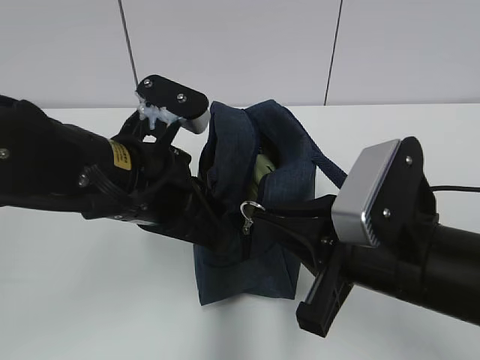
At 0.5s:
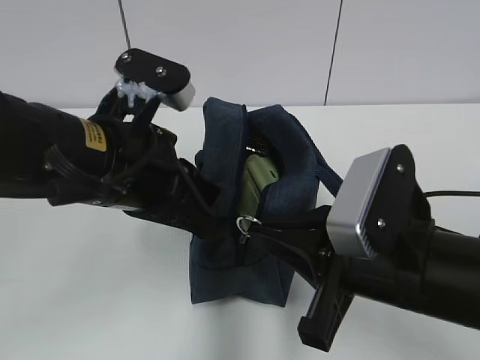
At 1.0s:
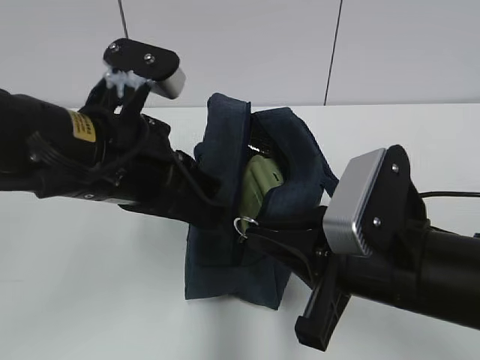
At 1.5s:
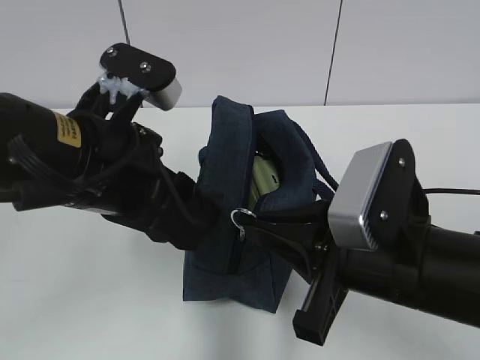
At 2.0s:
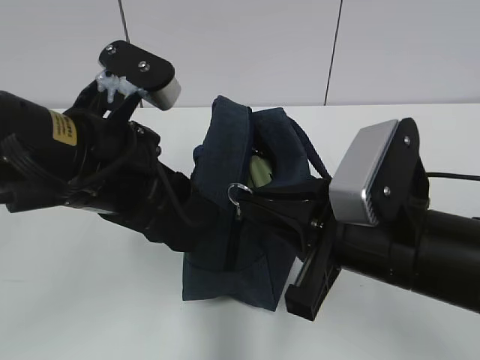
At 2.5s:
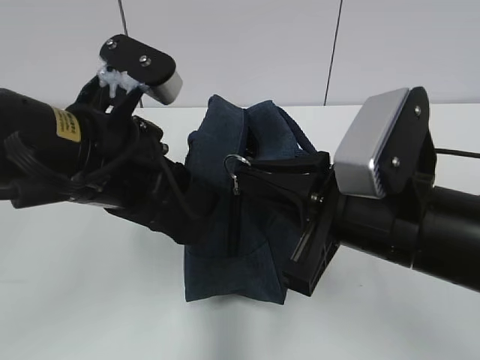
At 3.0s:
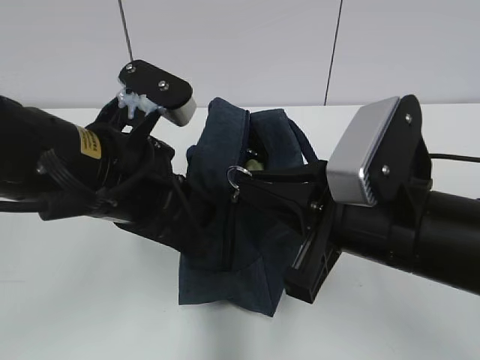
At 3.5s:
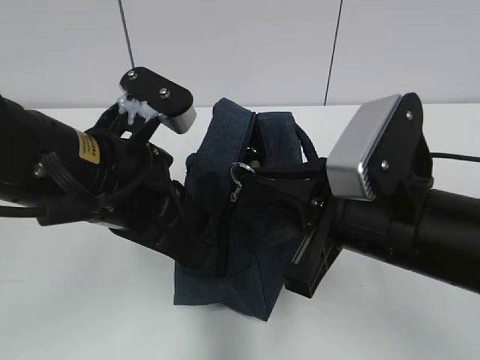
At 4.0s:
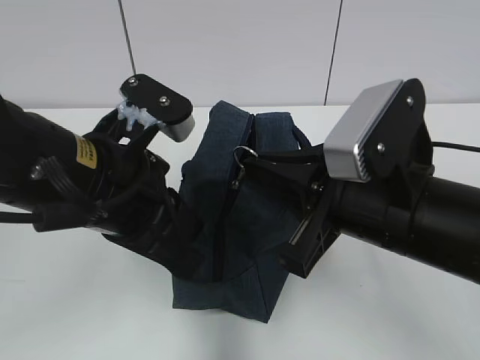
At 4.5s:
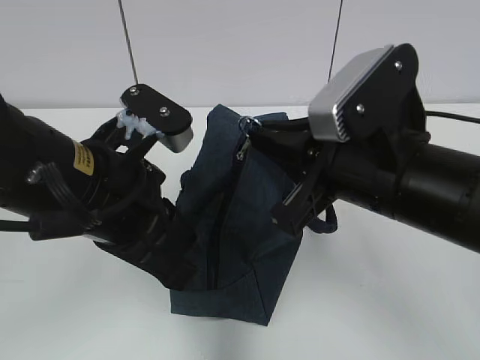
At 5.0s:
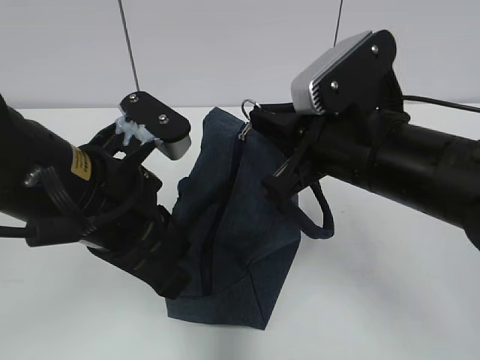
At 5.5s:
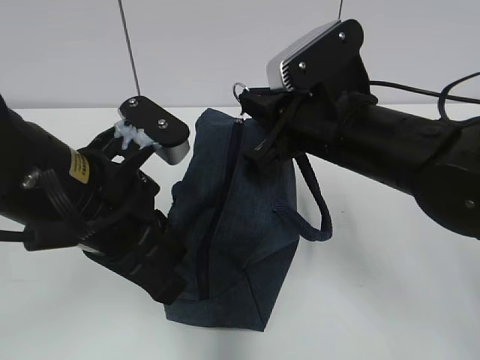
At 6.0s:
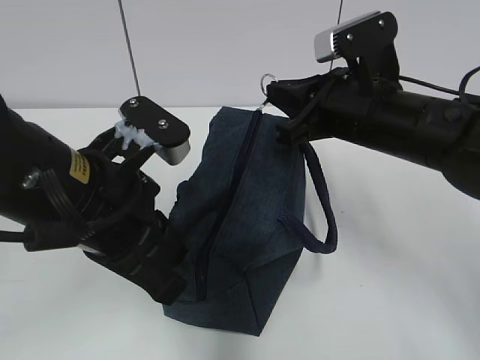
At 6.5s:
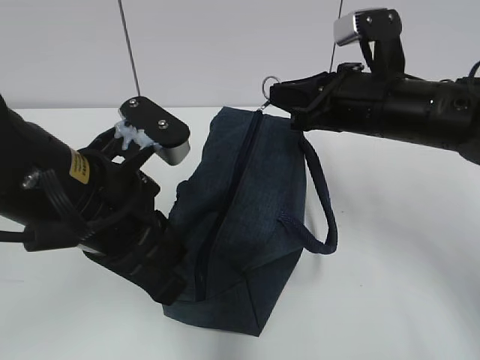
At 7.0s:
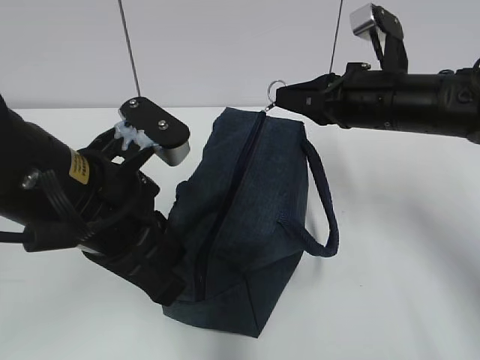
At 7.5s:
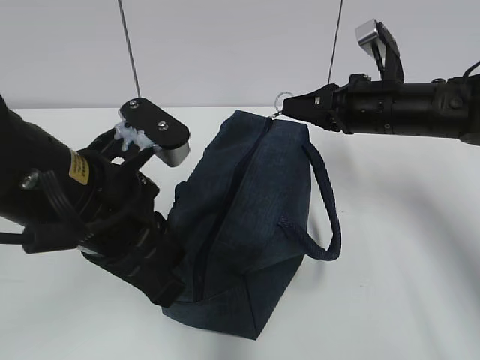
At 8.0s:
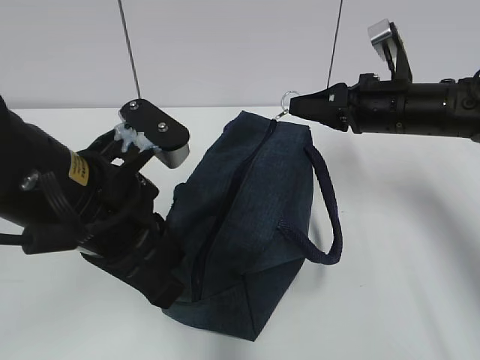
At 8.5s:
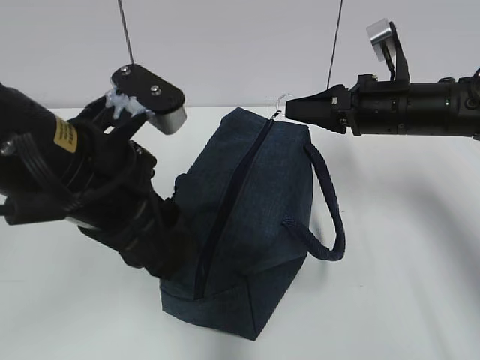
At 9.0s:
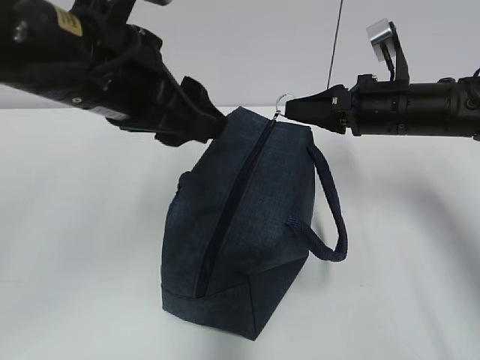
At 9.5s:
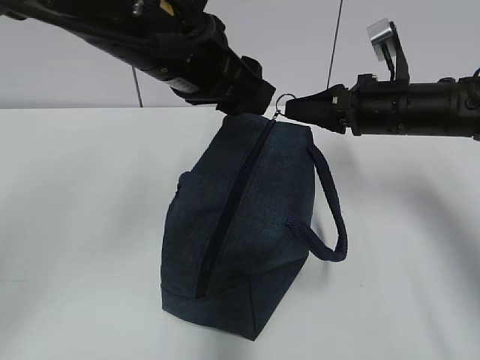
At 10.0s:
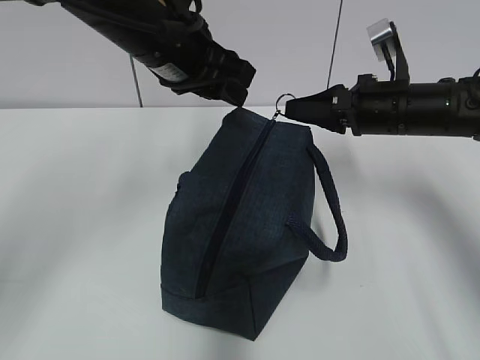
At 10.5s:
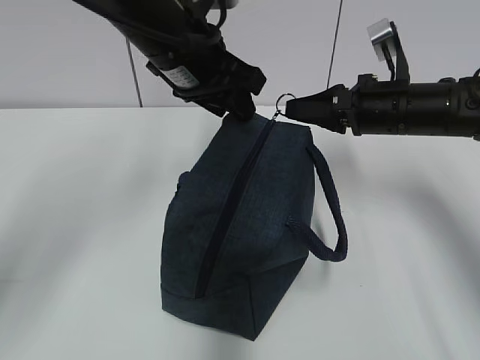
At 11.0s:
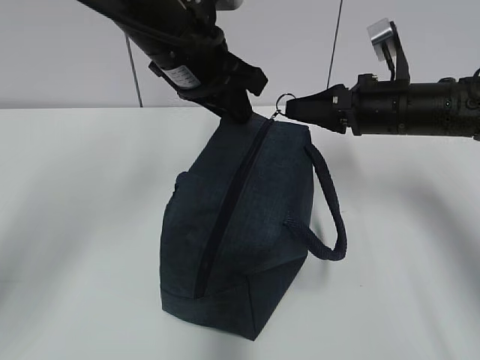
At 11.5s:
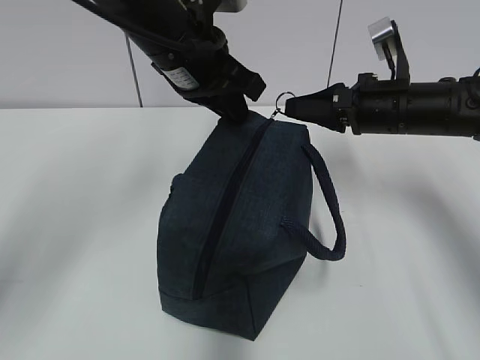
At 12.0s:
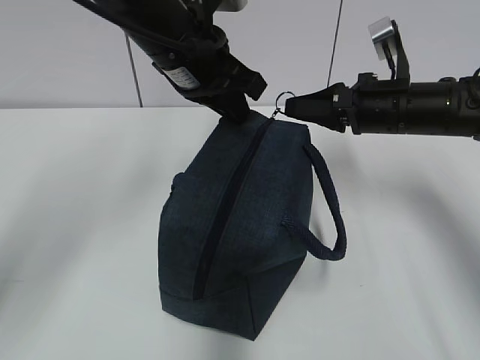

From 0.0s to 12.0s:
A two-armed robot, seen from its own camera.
From 0.0s to 2.0s: The left gripper opens.
From 2.0s to 4.0s: The left gripper closes.
From 4.0s to 6.0s: The right gripper moves forward, roughly 10 cm.
From 6.0s to 8.0s: The right gripper is displaced forward and to the right by about 10 cm.
From 8.0s to 10.0s: The left gripper travels forward and upward by some 15 cm, and opens.
From 10.0s to 12.0s: The left gripper closes up.

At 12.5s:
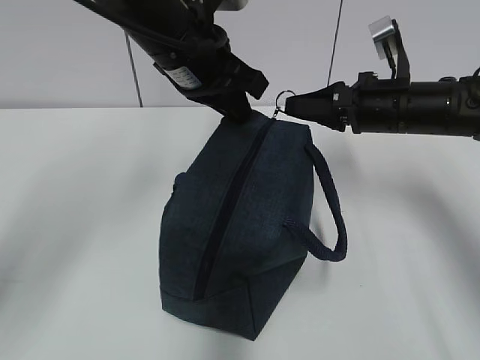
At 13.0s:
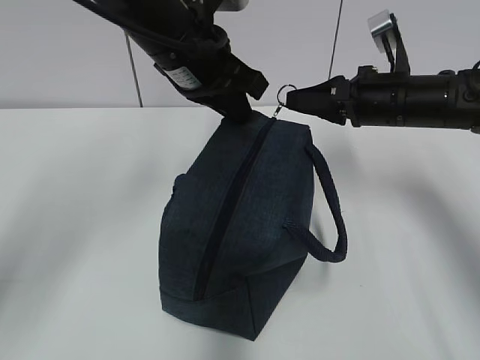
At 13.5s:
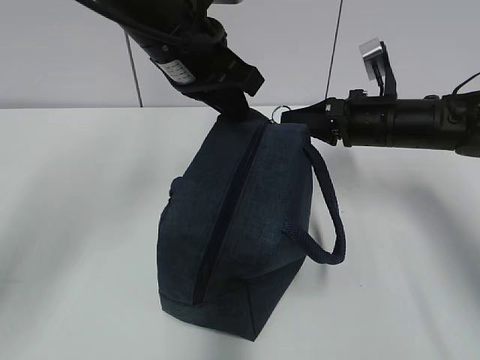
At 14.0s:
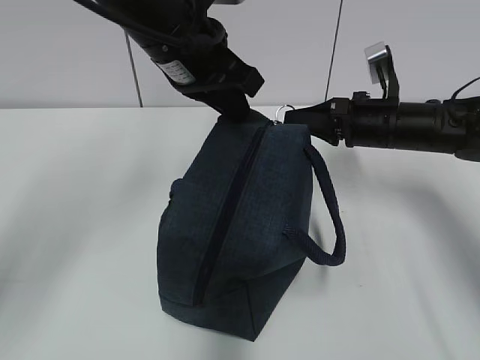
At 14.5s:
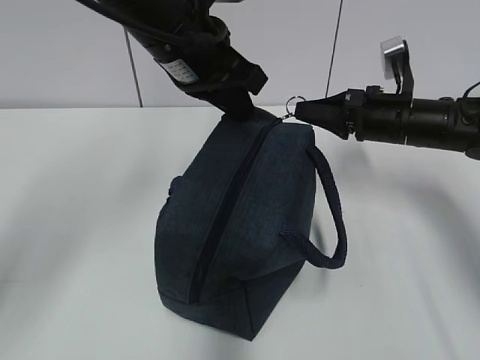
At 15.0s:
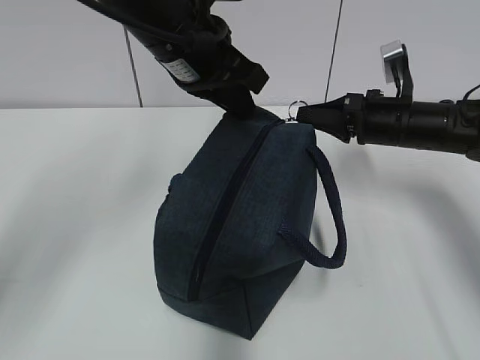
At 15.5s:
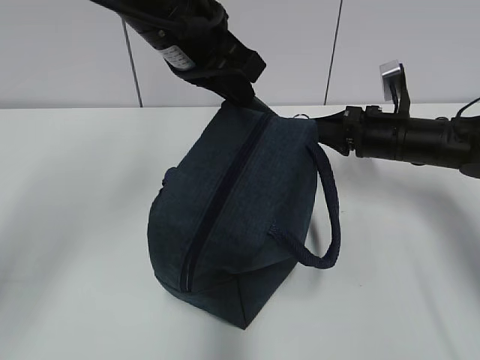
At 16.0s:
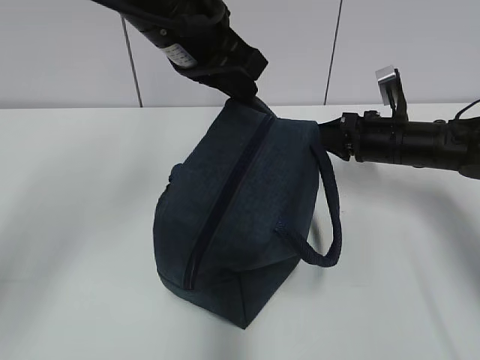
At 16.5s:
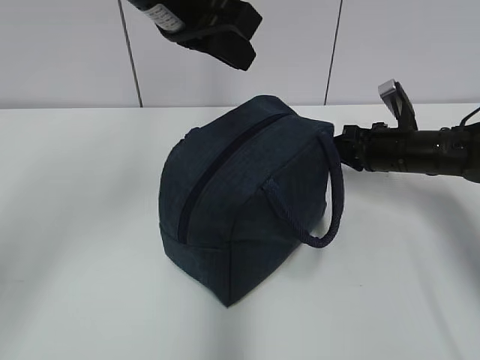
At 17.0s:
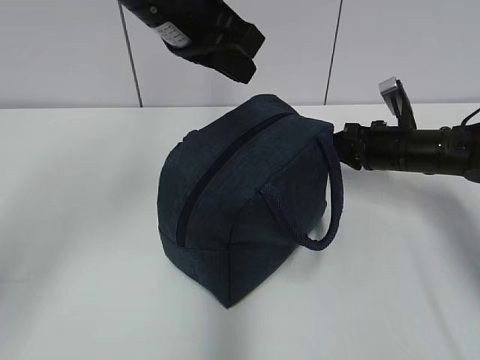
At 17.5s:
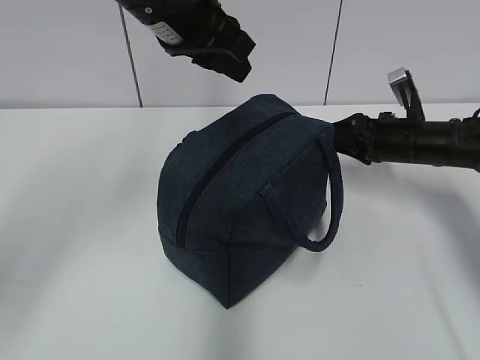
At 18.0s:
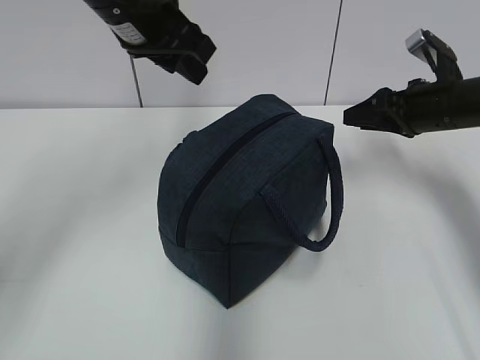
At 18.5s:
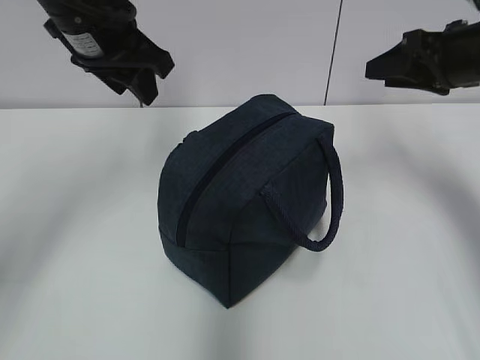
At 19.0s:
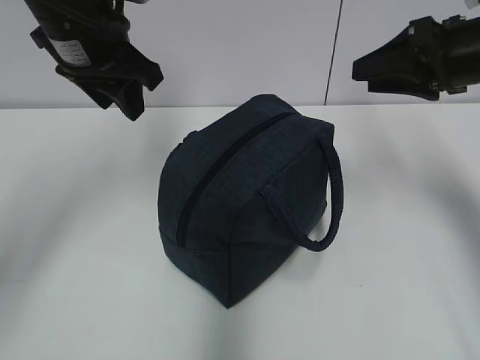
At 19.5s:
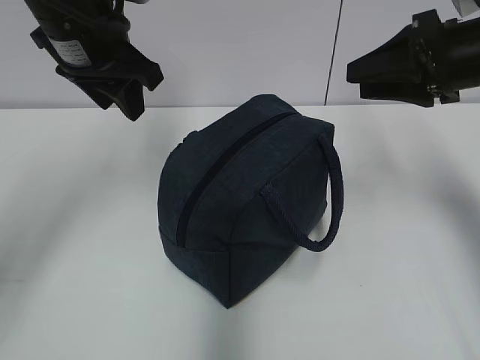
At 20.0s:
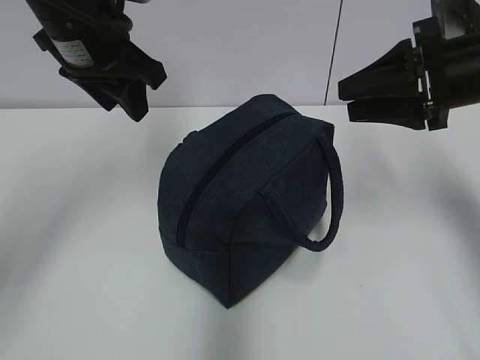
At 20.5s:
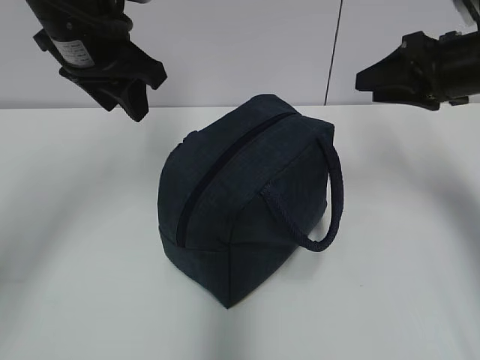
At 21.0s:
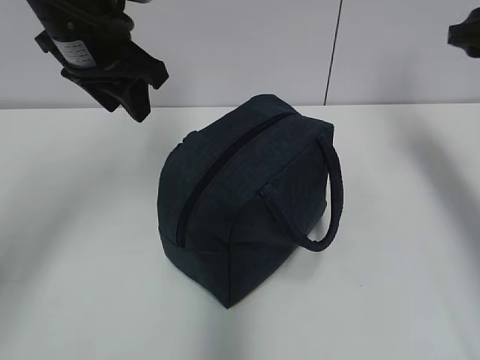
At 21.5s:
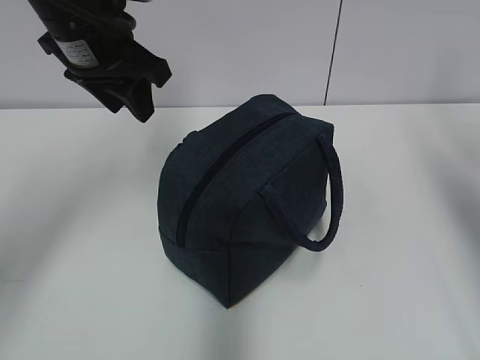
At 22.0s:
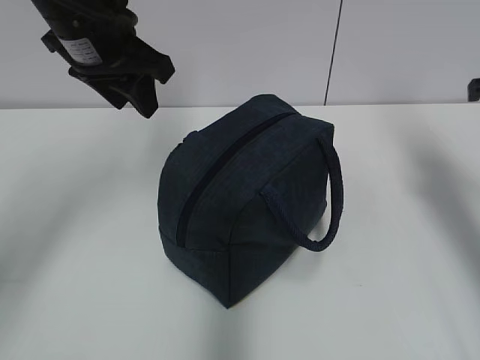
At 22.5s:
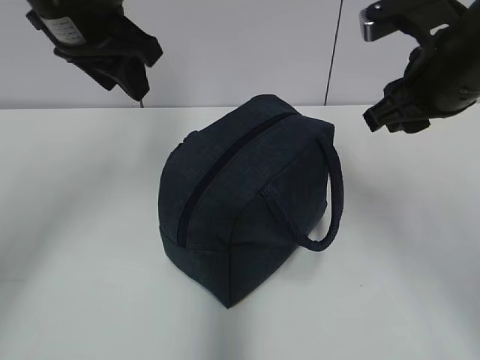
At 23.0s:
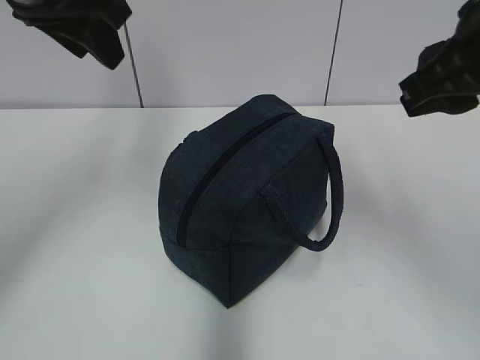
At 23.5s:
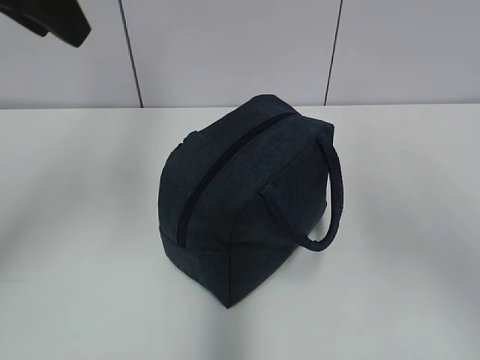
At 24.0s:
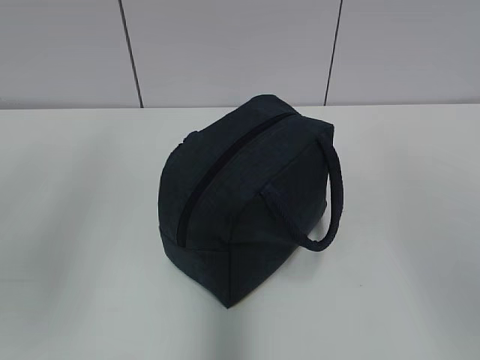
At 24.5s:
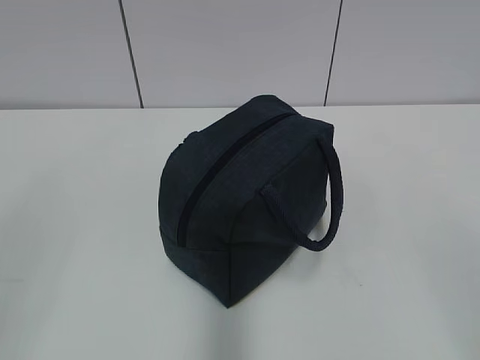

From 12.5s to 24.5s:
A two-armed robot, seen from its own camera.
From 12.5s to 14.5s: There are only small adjustments of the grippers.
From 14.5s to 16.5s: The left gripper travels upward by approximately 5 cm. Meanwhile the right gripper shifts about 5 cm downward.
From 16.5s to 18.5s: The right gripper shifts approximately 15 cm upward, and opens. Meanwhile the left gripper heads to the left, covering roughly 5 cm, and opens.
From 20.5s to 22.5s: The right gripper heads to the left and backward, covering roughly 10 cm.
From 22.5s to 24.5s: The right gripper is displaced backward by about 35 cm. The left gripper heads backward and to the left, covering approximately 35 cm.

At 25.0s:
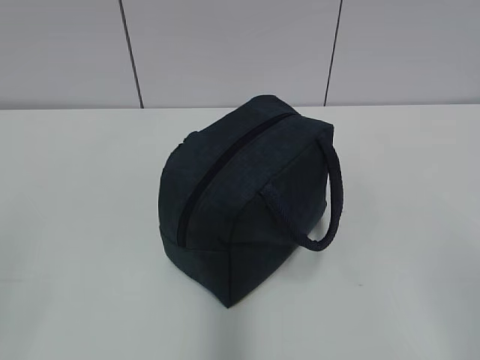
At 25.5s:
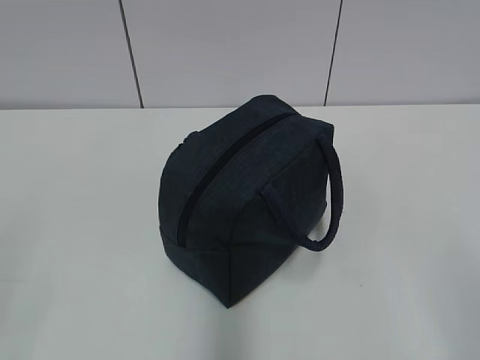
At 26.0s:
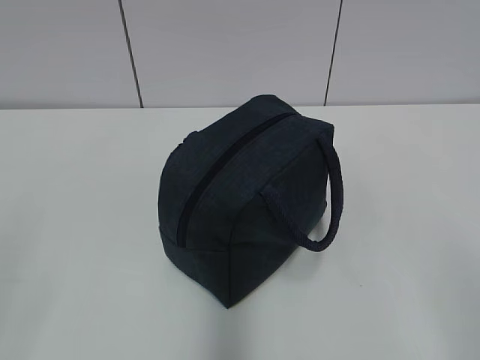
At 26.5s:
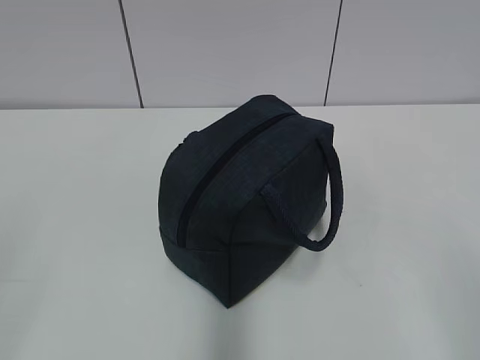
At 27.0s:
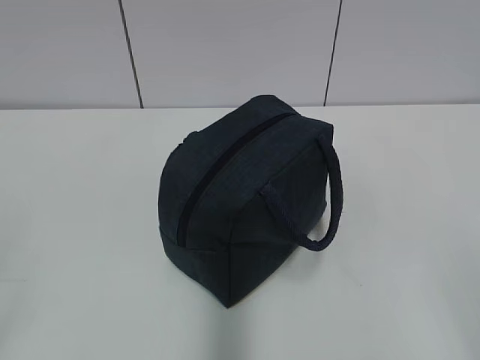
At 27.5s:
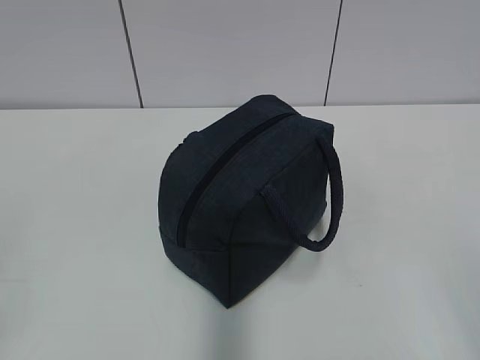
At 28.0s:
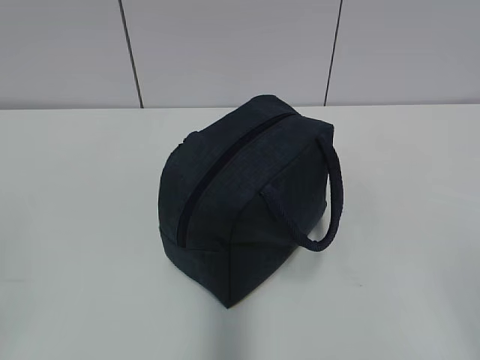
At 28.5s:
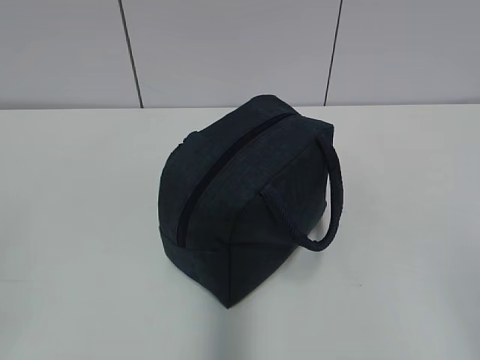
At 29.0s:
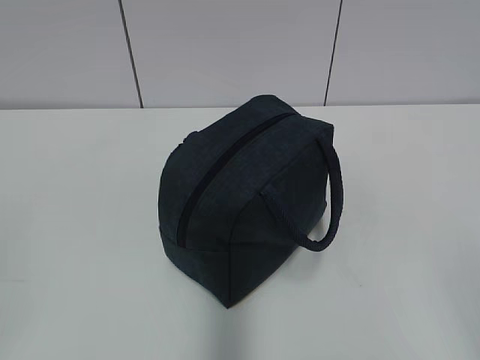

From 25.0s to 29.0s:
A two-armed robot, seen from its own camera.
From 27.0s to 29.0s: The two grippers keep their place.
